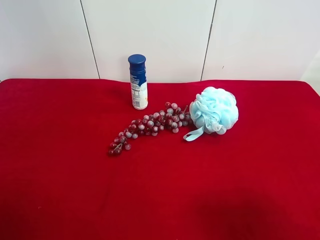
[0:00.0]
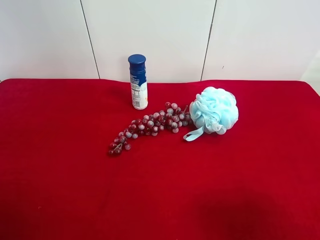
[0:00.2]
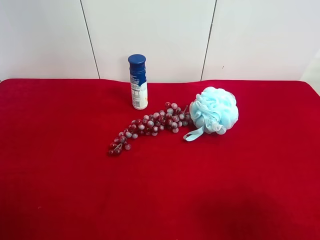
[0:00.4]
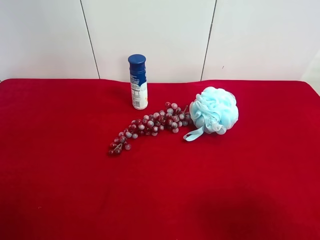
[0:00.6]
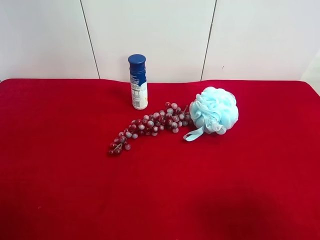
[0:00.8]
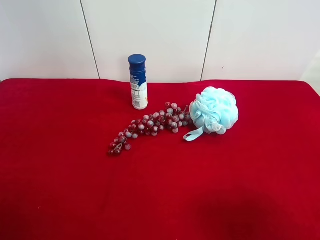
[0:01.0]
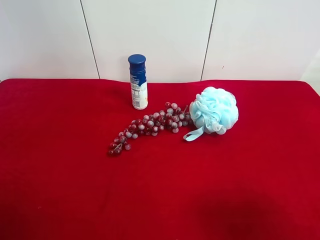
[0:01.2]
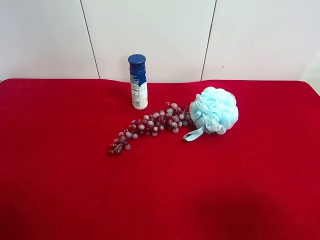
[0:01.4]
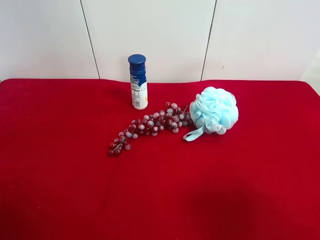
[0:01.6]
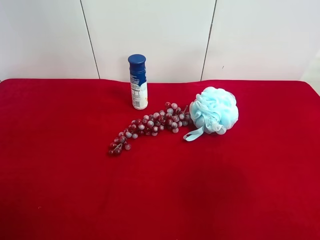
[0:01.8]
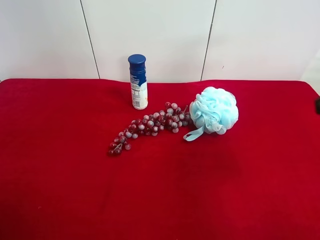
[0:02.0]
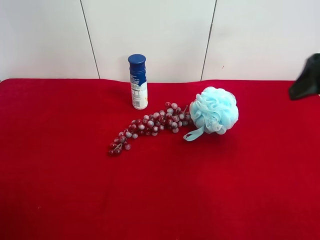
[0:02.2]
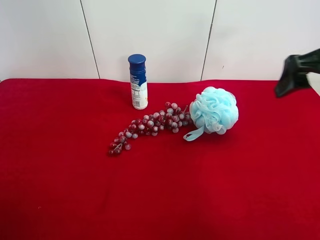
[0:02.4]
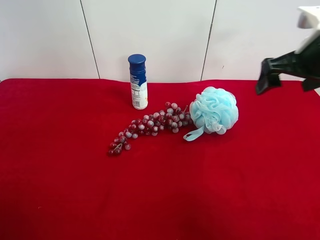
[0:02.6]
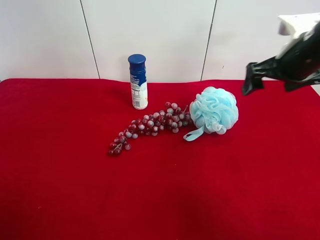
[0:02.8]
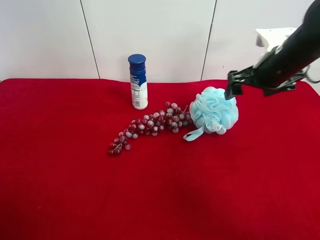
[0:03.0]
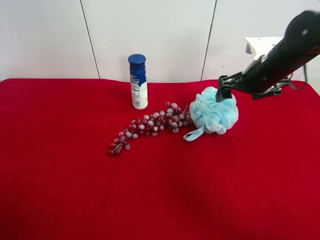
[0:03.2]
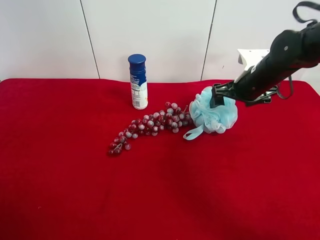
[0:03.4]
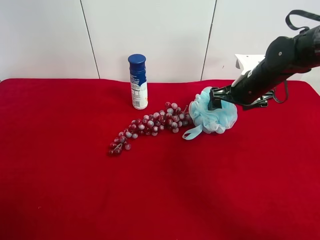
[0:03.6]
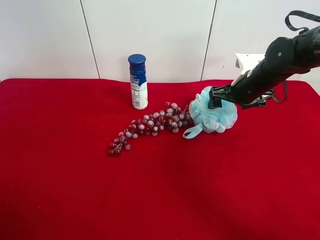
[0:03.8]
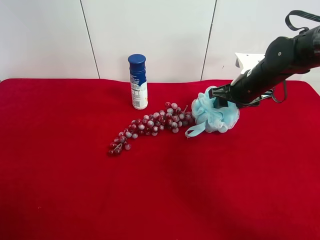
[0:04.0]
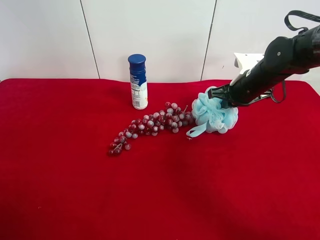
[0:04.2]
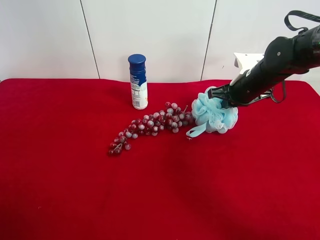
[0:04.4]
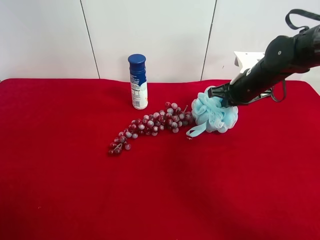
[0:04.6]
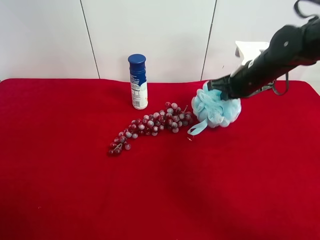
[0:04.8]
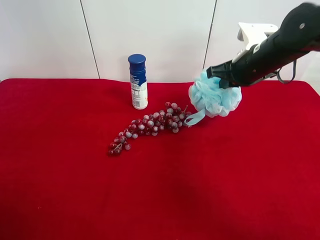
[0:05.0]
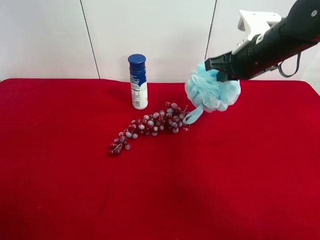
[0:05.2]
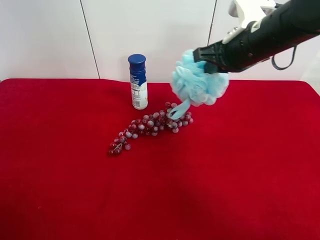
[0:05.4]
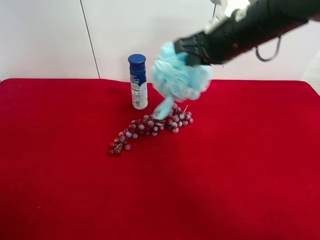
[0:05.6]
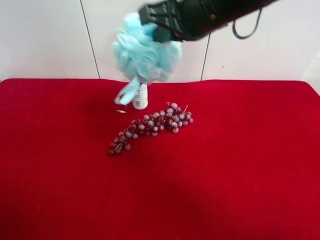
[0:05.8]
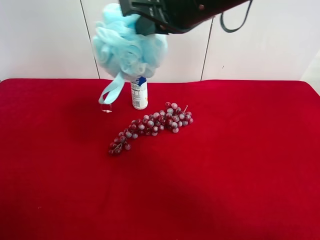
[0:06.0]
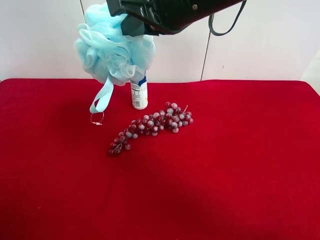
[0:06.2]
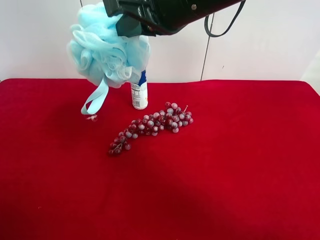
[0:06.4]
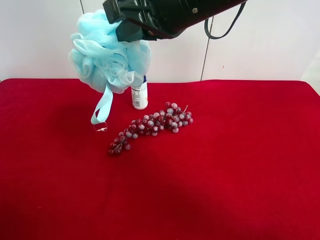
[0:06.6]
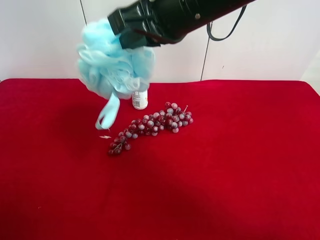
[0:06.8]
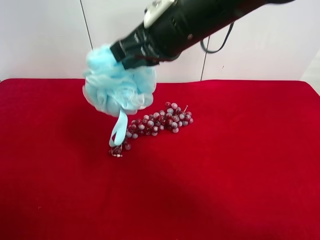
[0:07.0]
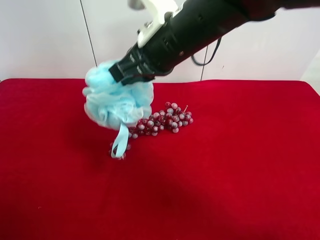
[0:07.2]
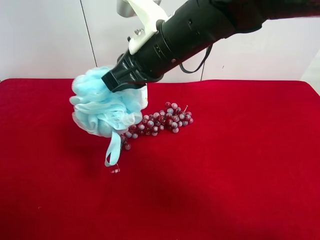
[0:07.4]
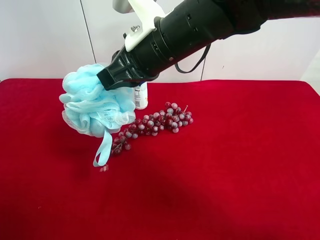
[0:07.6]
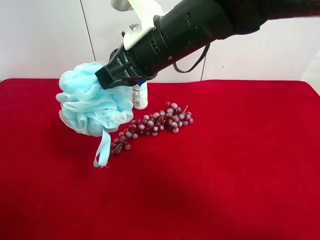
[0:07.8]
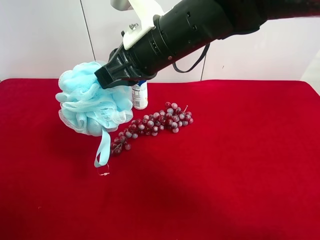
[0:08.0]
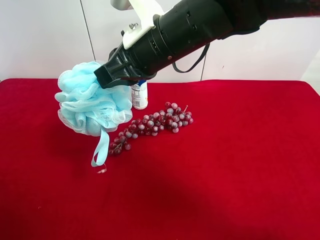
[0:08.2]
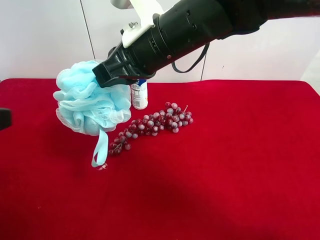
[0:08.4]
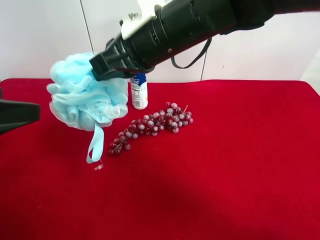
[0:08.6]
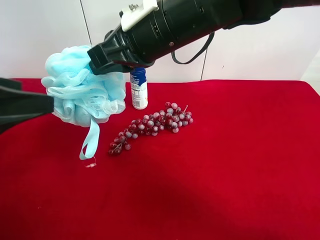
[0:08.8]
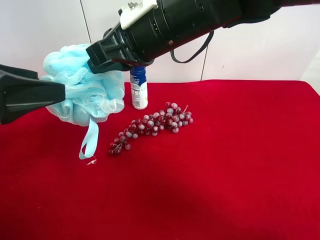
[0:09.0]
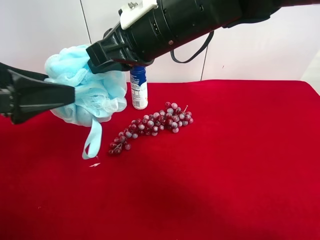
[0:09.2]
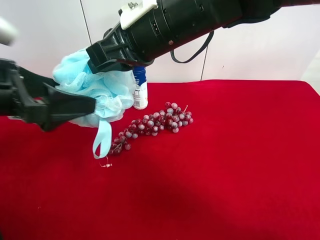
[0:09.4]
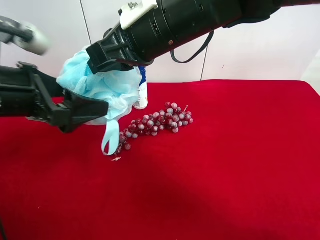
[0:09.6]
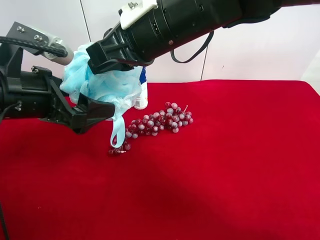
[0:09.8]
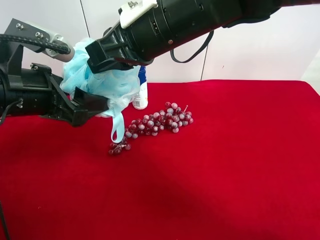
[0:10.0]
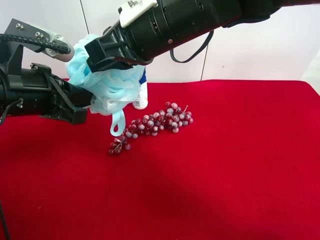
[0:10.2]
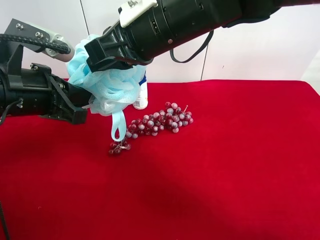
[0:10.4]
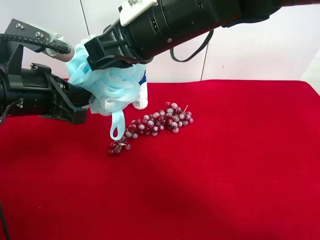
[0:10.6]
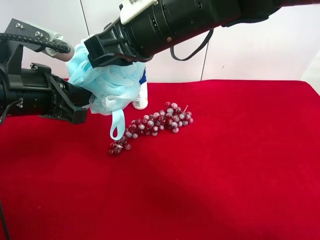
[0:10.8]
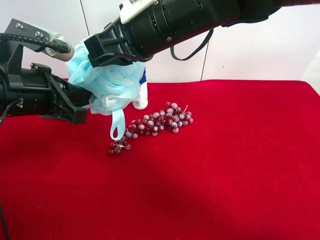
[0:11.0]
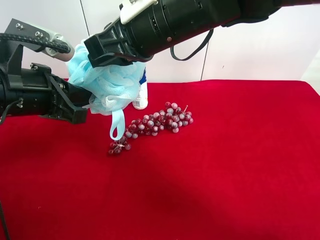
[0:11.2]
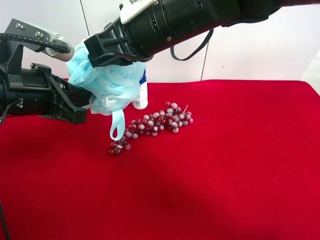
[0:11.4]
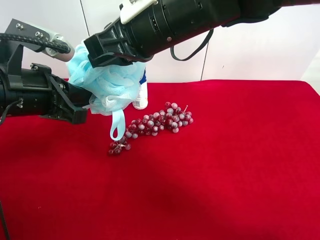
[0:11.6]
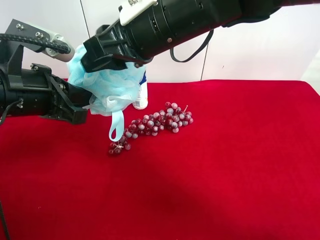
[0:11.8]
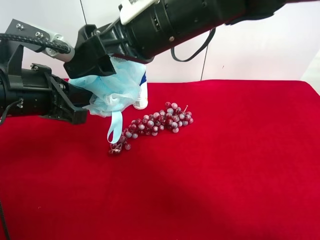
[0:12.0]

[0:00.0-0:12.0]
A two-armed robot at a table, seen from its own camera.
Task of the whole recording: use the right gripper to pick up the item and transfer it from the right gripper to the left gripper.
Step, 0:00.0 to 0:04.4: Use the right gripper to grab the shower sphere on the right side of the table.
Step, 0:04.6 to 0:12.0: Pass the shower sphere to the left gripper.
0:01.6 to 0:03.0: The right gripper goes approximately 30 cm forward.
0:03.0 to 0:04.4: The right gripper goes about 5 cm downward, and closes its fingers.
0:04.4 to 0:06.0: The right gripper travels upward, to the left and backward by approximately 25 cm.
0:06.0 to 0:07.6: The right gripper goes about 5 cm downward.
0:07.6 to 0:09.0: The left gripper shifts some 15 cm forward.
0:09.0 to 0:10.4: The left gripper heads to the right, covering some 5 cm, and closes its fingers.
0:10.4 to 0:12.0: The right gripper opens up.

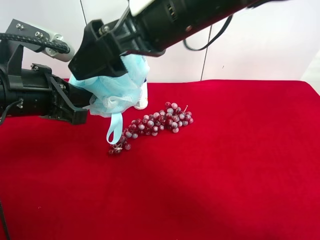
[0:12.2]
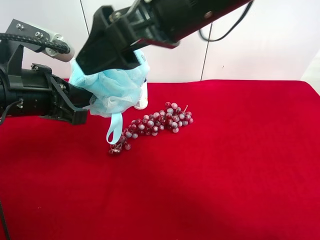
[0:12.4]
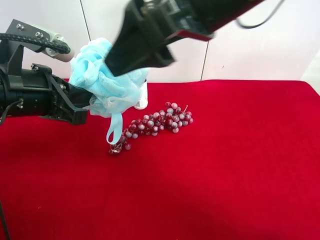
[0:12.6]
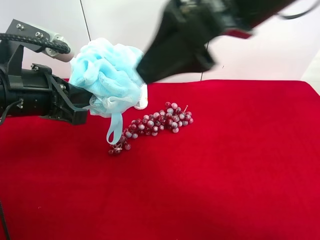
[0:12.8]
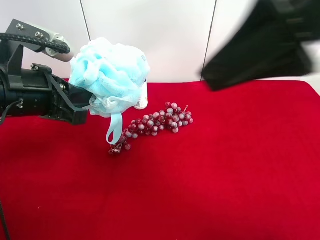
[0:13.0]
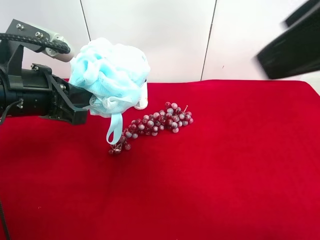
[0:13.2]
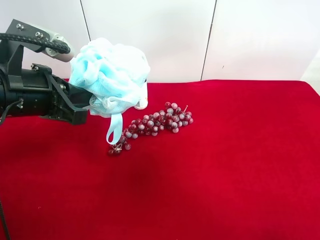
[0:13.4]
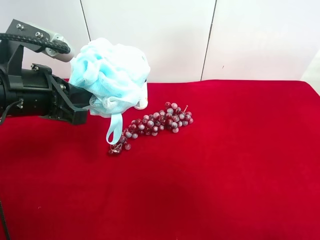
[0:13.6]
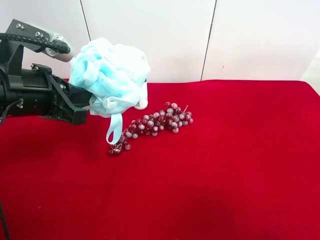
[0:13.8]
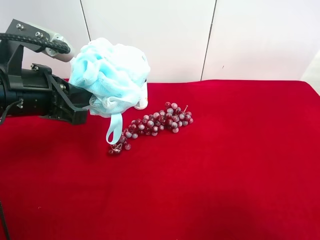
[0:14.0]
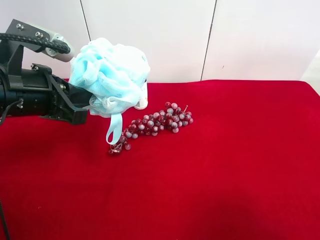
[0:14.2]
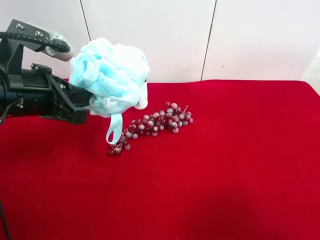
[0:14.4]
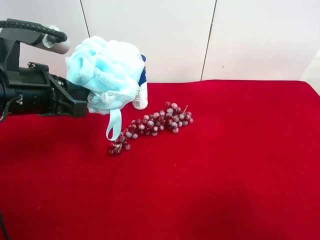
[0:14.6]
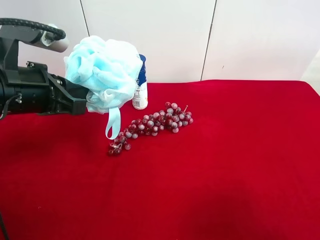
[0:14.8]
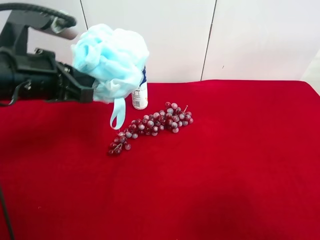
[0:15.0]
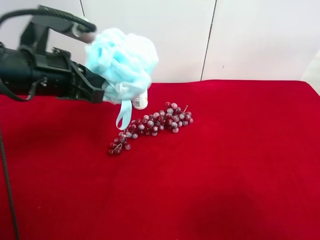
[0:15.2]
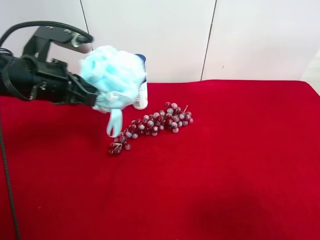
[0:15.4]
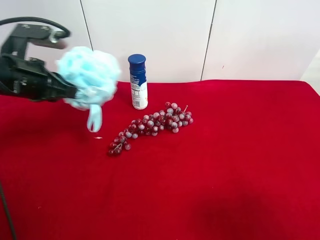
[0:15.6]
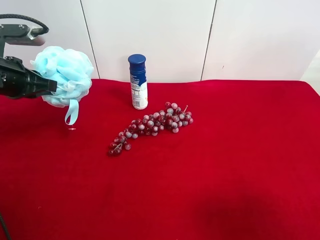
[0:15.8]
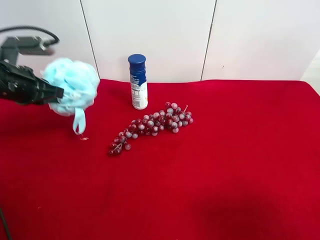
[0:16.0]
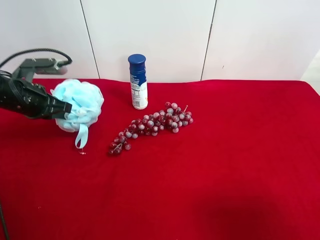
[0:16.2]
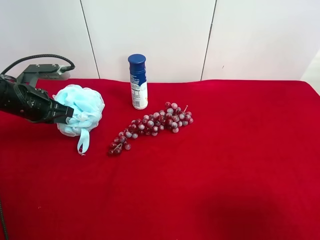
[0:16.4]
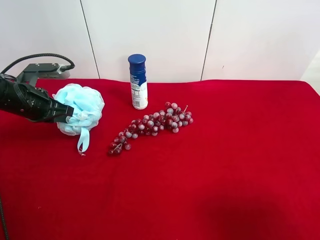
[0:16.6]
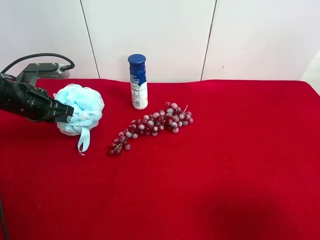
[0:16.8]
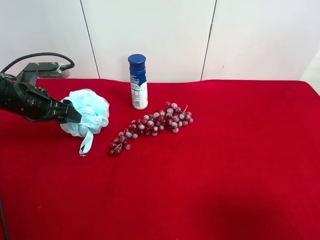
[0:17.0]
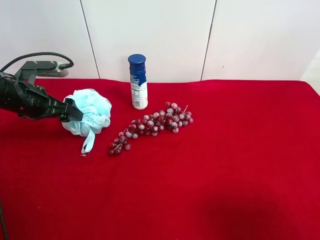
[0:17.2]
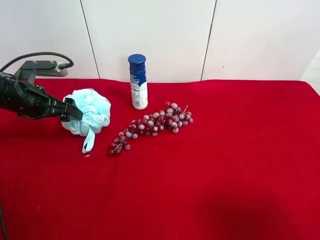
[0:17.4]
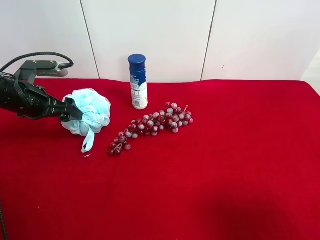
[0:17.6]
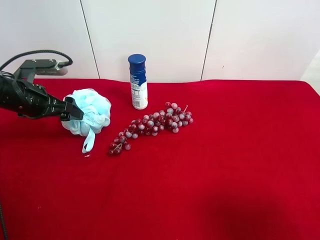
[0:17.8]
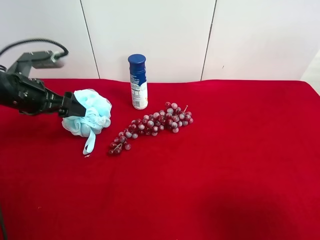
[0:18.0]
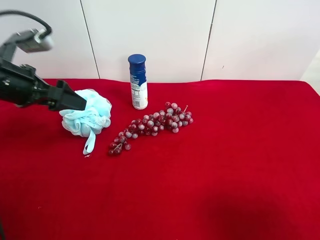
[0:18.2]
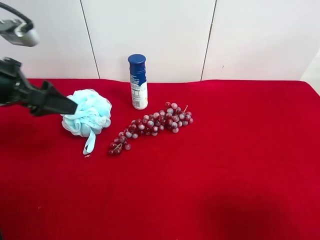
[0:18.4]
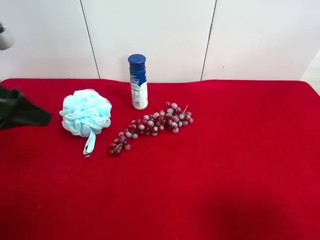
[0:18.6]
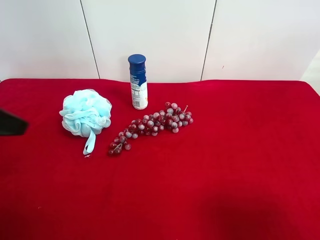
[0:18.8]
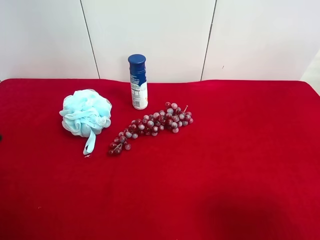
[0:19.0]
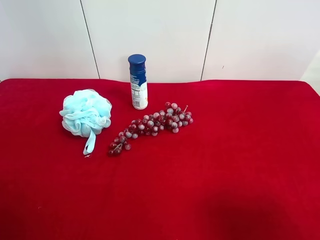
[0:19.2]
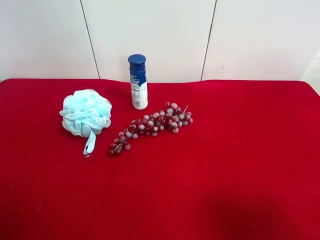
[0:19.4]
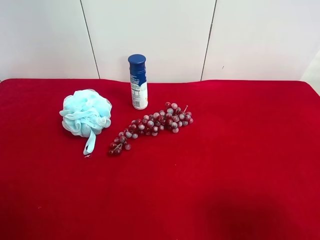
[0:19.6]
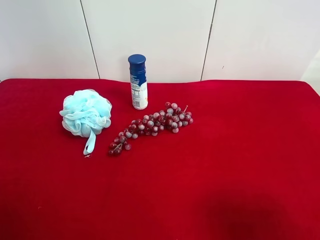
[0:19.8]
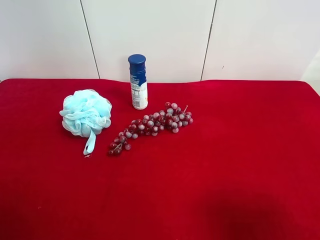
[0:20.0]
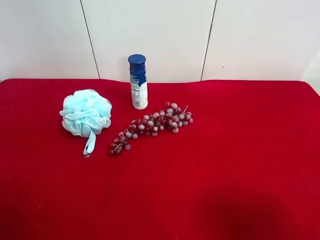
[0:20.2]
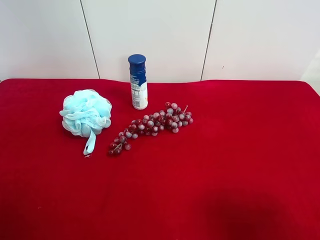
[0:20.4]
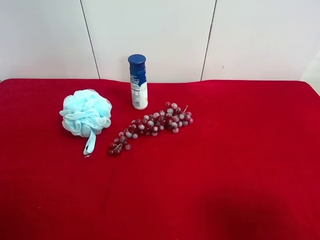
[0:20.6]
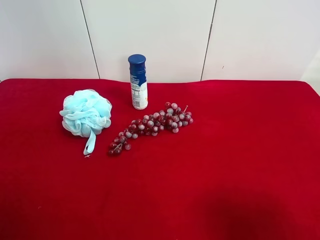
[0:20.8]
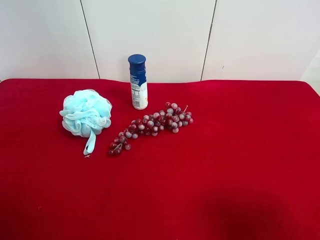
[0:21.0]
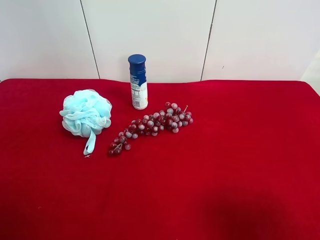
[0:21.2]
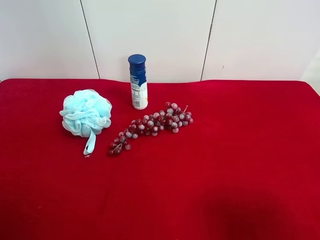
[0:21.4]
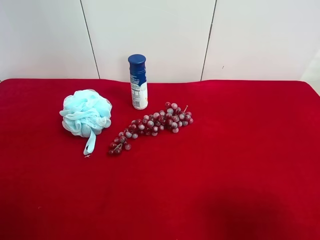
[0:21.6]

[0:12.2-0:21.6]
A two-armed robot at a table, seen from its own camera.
Task of the whole recording: use the right gripper to pick up the item and transfer it from the right gripper to the left gripper.
Step, 0:12.2 to 0:17.4: The left gripper places shower sphere on the left side of the table.
0:12.2 to 0:13.8: The right gripper shifts about 35 cm to the right and backward.
0:13.8 to 0:15.4: The left gripper goes roughly 5 cm forward.
0:15.4 to 0:17.0: The left gripper moves downward and to the left, approximately 10 cm, and opens its fingers.
0:17.0 to 0:18.4: The left gripper travels upward and backward by roughly 15 cm.
0:18.4 to 0:20.0: The left gripper heads backward, covering some 20 cm.

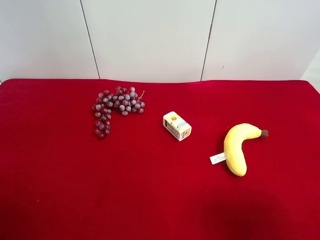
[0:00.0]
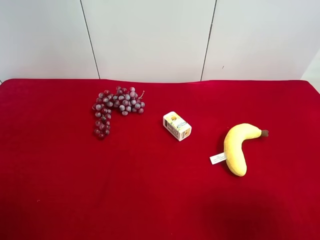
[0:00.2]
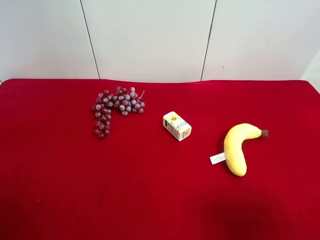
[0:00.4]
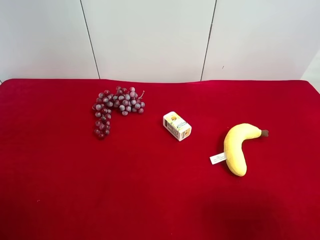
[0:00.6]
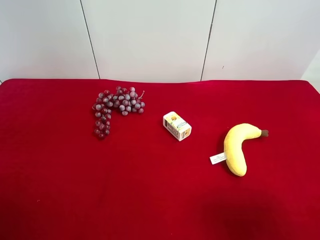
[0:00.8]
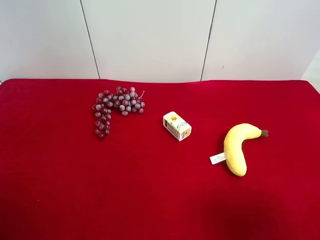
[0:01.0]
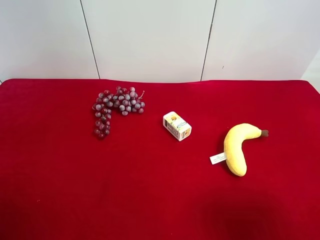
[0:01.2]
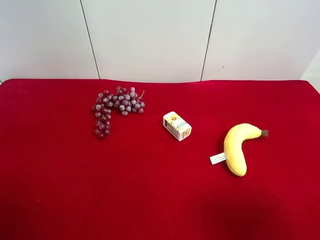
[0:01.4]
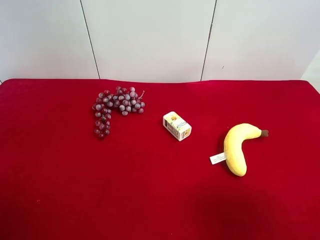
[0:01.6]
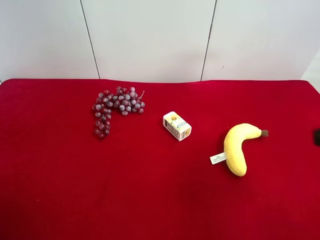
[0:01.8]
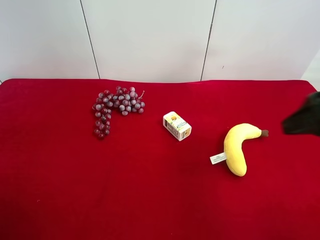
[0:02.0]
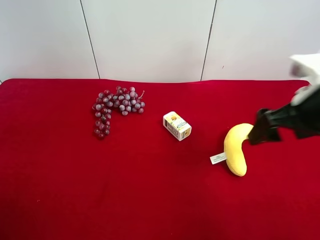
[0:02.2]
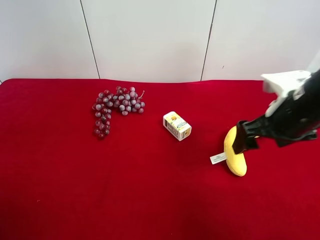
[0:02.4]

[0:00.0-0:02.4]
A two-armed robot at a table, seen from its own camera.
Task of the whole recording: use the right gripper to pick up the item and transfer it from the right gripper to the left gripper.
0:00.0 to 0:01.2: Neither gripper changes place.
0:01.2 to 0:02.4: The right gripper heads forward, covering roughly 25 cm.
